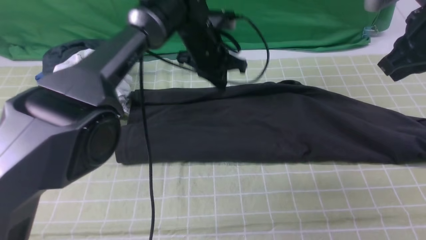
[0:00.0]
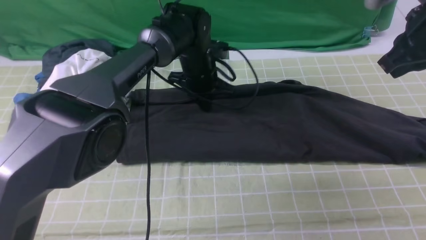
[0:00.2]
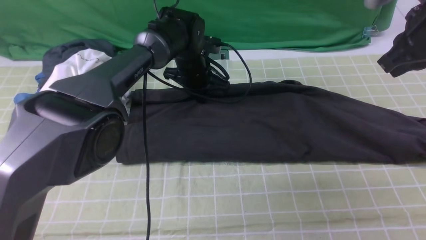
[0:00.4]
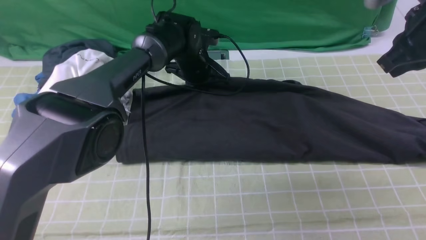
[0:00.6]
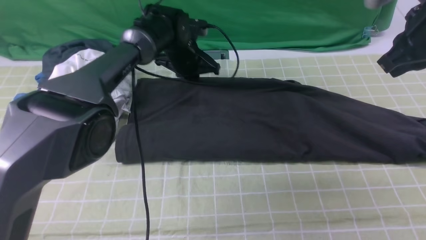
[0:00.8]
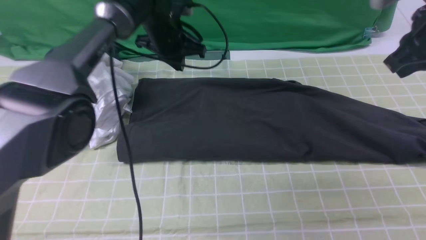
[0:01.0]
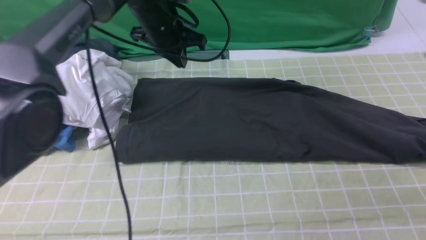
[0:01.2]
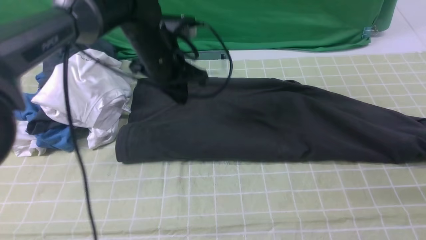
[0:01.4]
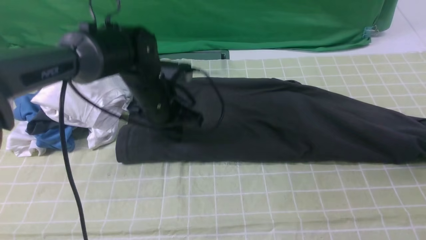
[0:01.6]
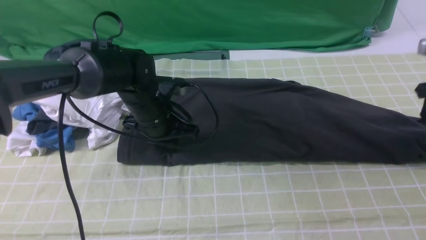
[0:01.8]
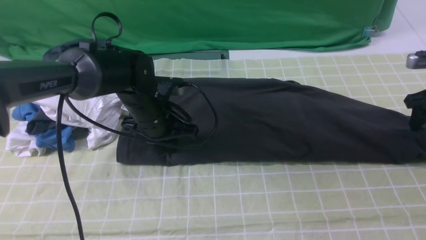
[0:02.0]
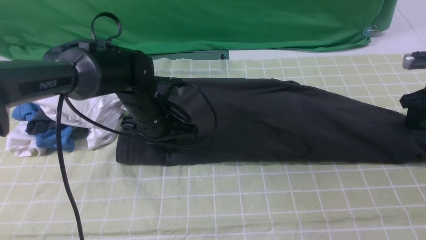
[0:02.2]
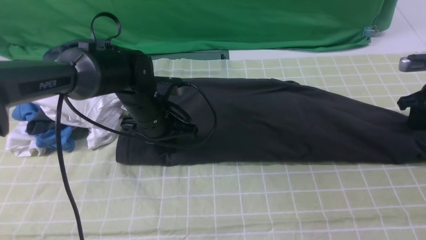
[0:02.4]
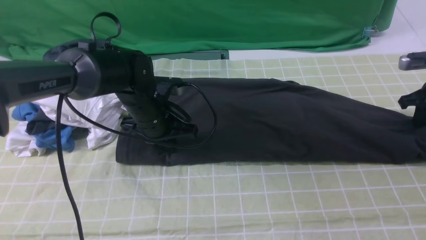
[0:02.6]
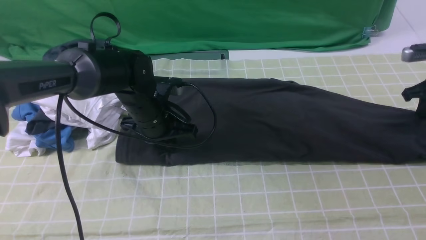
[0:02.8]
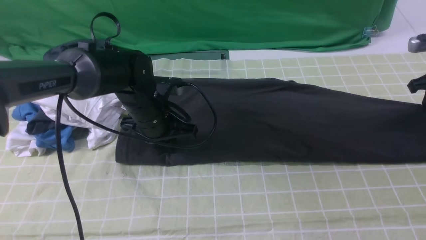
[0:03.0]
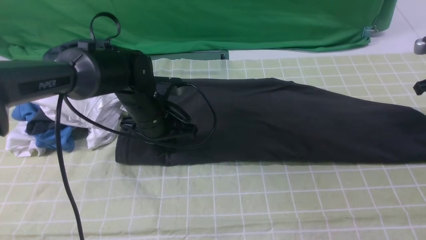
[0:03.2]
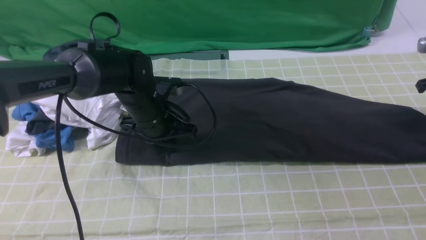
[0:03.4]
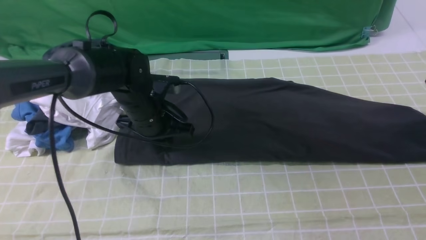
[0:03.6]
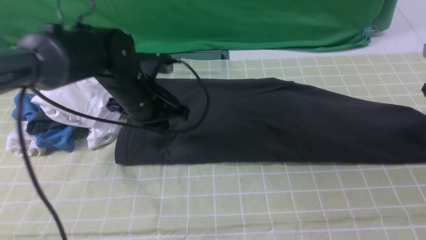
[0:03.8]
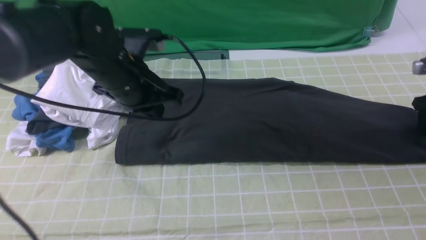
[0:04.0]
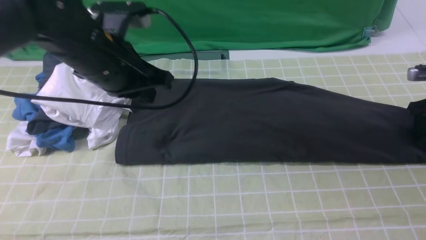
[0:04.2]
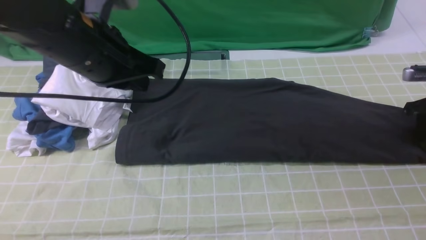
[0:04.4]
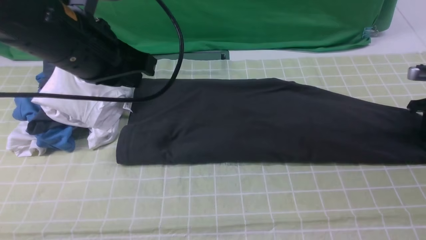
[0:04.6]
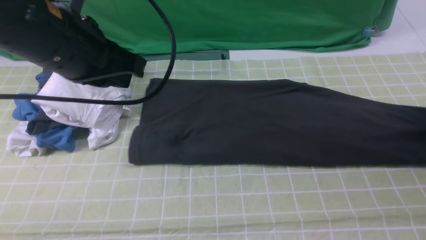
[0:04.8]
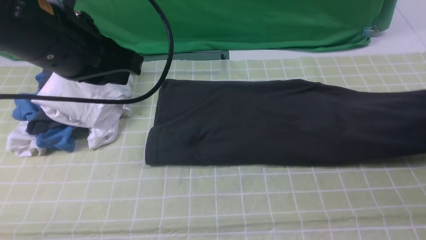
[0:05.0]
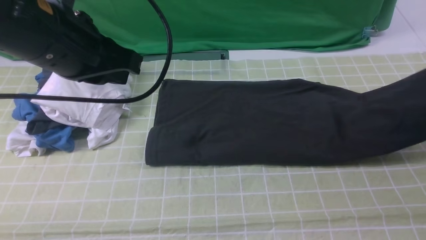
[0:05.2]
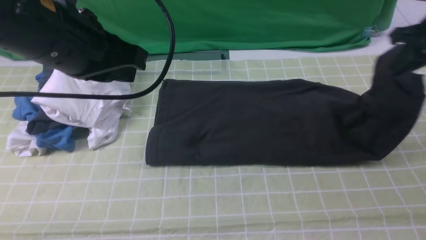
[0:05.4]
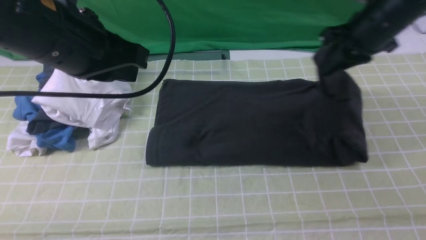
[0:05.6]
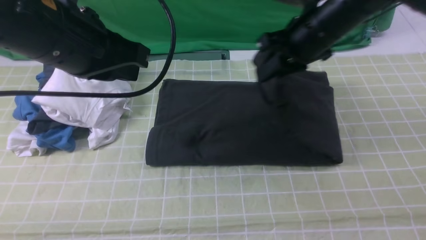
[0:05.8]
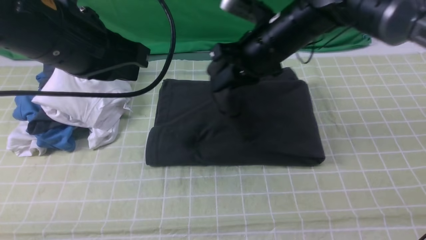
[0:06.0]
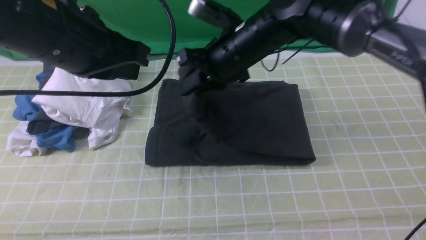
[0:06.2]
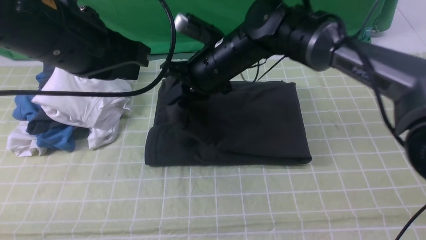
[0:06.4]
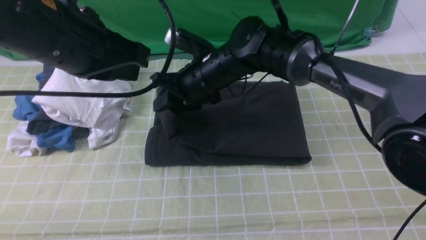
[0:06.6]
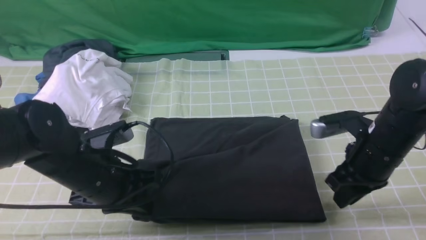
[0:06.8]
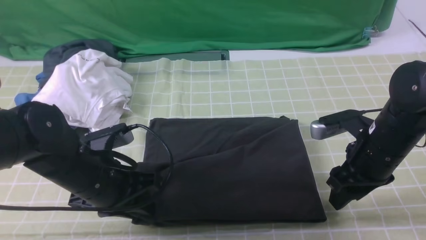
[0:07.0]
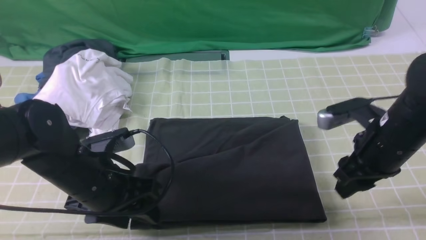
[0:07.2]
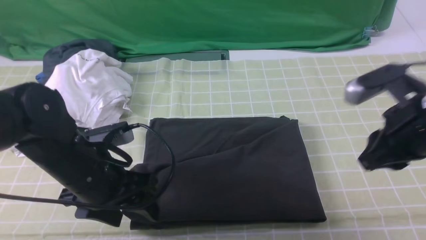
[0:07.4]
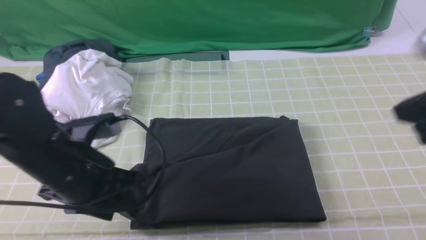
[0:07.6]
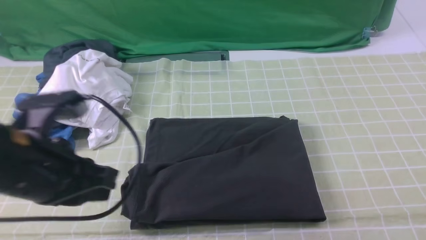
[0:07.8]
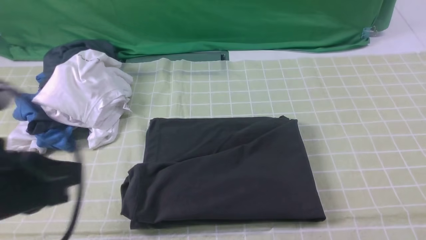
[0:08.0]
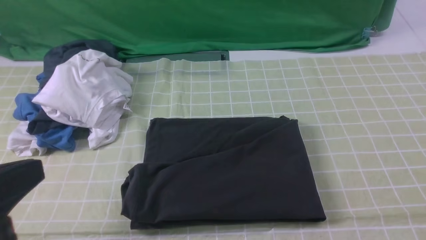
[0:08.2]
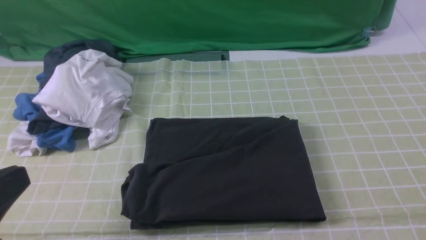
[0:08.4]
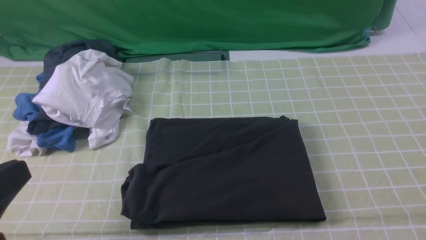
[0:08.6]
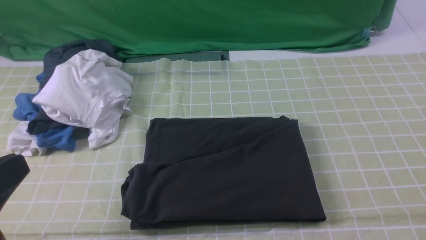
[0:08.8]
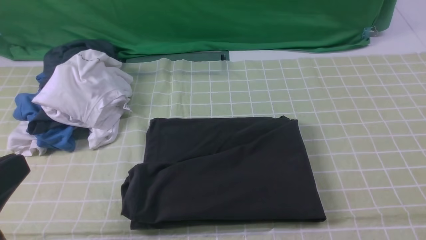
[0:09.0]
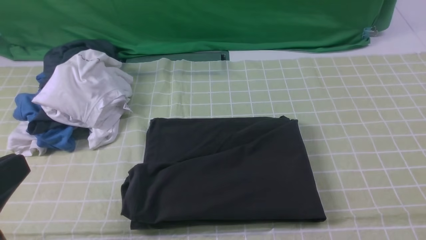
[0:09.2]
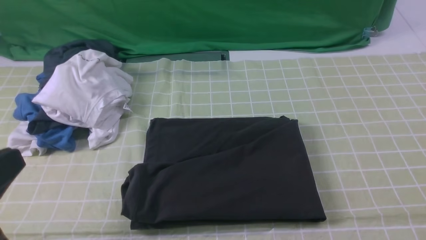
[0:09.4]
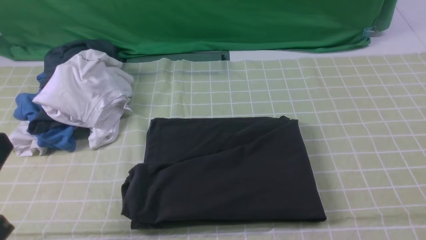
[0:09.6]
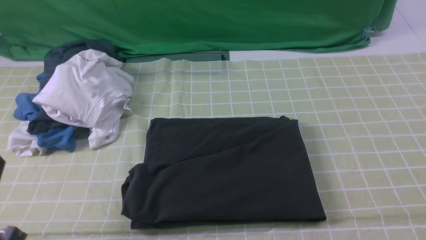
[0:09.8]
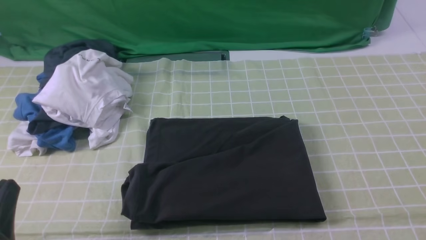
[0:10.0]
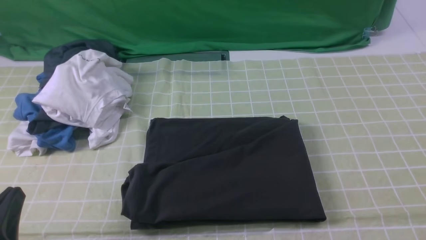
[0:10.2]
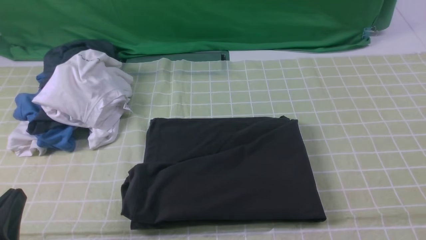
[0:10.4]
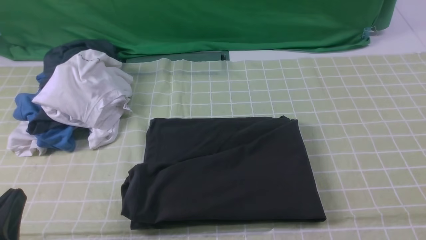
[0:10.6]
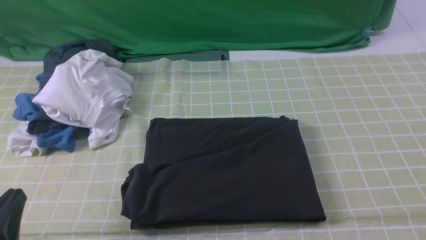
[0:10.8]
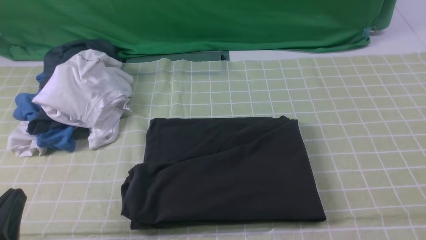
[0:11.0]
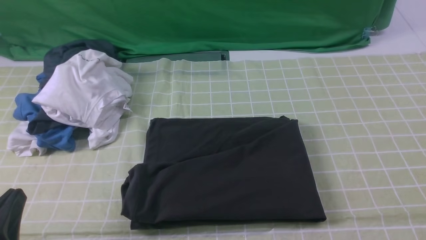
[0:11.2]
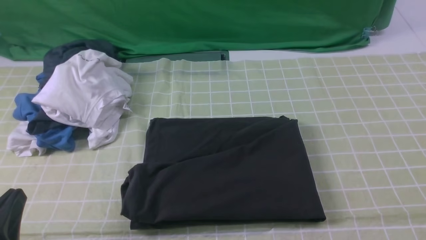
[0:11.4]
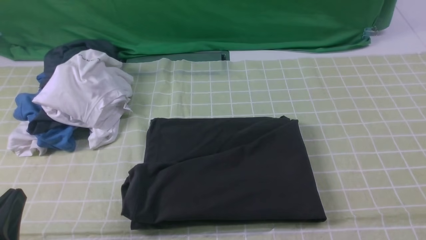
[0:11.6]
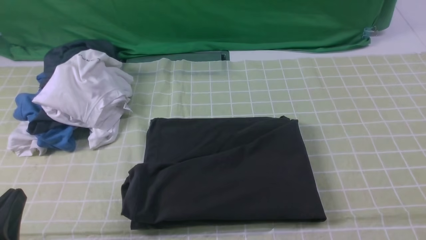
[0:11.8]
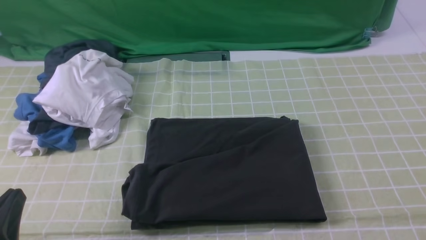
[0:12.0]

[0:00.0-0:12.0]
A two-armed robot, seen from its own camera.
Step, 1.0 to 4.4 s: use the right arm to clamp the right edge of the fabric.
Step, 4.8 to 7.6 s: use the right arm to drag the right edge of the fabric to the left and folds it over the left edge.
0.0 to 1.6 s: The left gripper shifts approximately 10 cm backward and to the left. Meanwhile the right gripper goes approximately 15 cm to the right and downward, and opens.
1.6 to 3.0 s: The right gripper moves downward and forward, roughly 10 cm, and closes its fingers.
3.0 to 4.4 s: The left gripper heads upward and backward, covering about 20 cm, while the right gripper opens its fingers.
4.4 to 6.0 s: The right gripper heads to the left, covering some 35 cm.
6.0 to 7.6 s: The right gripper is displaced backward, to the right and upward by about 30 cm, and opens, then closes again. Meanwhile the left gripper heads downward and backward, covering approximately 15 cm, and opens up.
7.6 to 9.0 s: The right gripper travels backward and to the right by some 15 cm, while the left gripper is displaced backward and upward by approximately 15 cm, and closes.
9.0 to 10.4 s: The left gripper shifts roughly 10 cm downward.

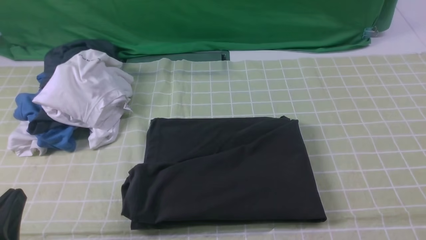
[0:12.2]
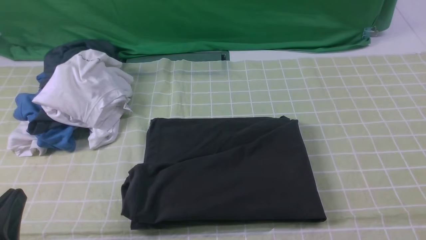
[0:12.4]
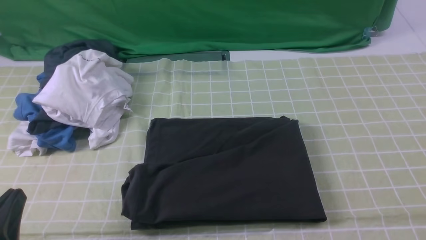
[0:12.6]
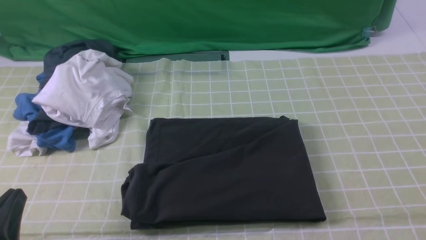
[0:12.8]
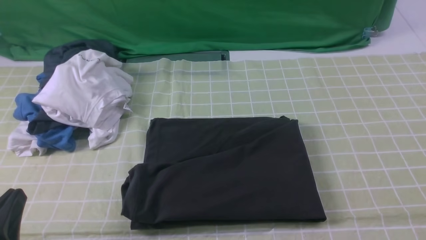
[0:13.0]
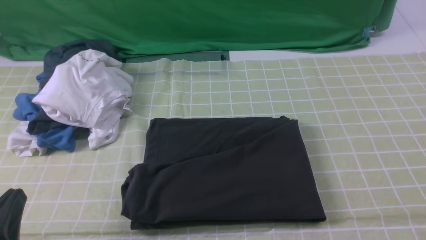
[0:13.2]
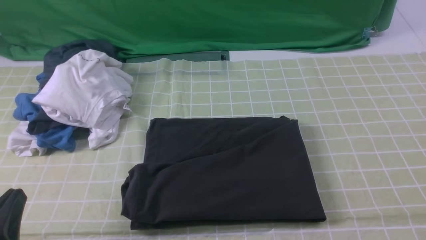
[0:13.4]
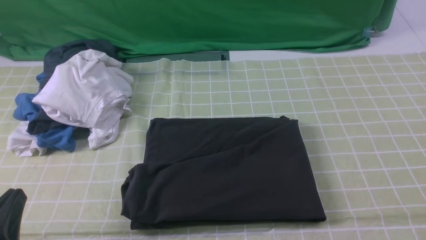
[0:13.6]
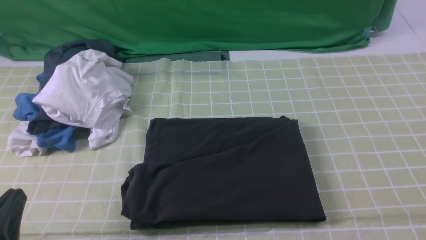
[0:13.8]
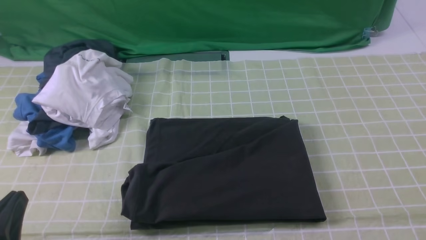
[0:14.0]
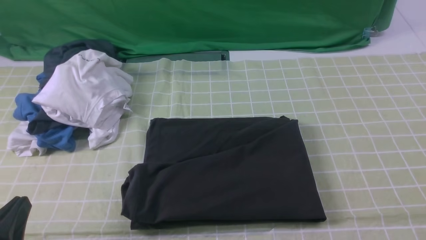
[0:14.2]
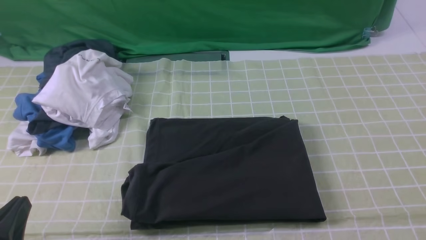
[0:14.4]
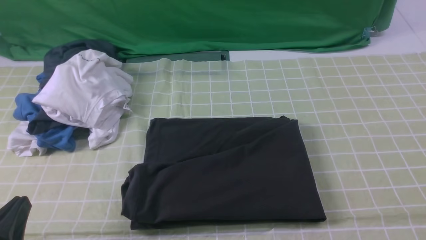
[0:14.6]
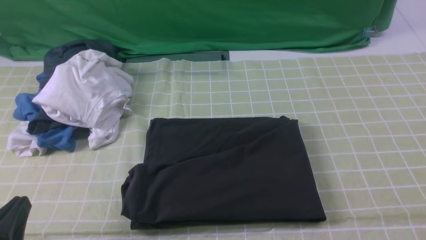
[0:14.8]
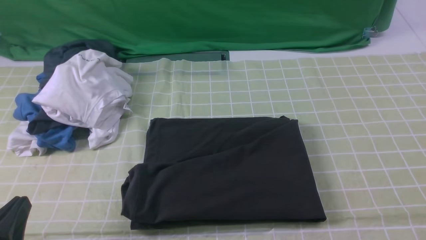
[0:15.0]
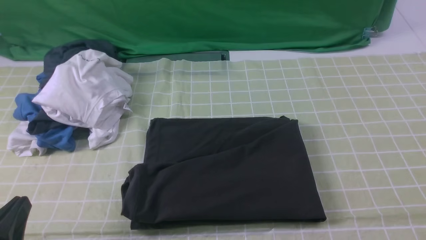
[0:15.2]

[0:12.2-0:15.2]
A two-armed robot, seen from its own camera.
12.2 to 15.2 s: The two grippers keep their place.

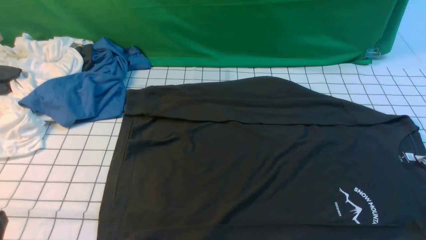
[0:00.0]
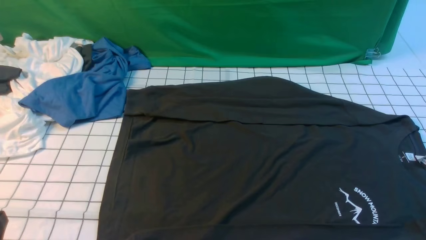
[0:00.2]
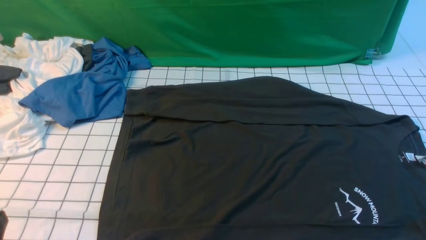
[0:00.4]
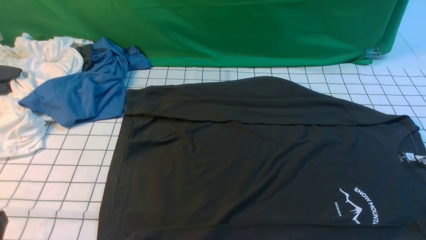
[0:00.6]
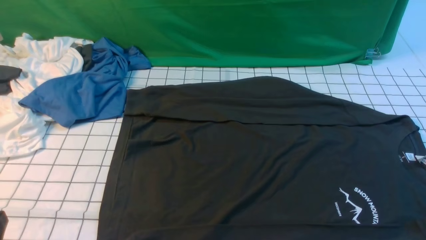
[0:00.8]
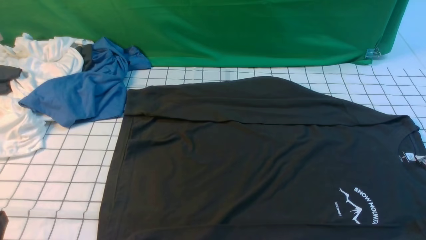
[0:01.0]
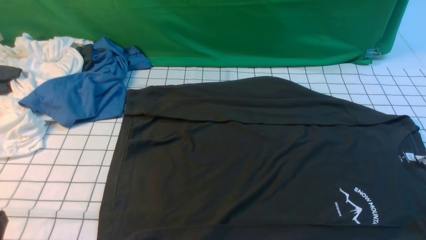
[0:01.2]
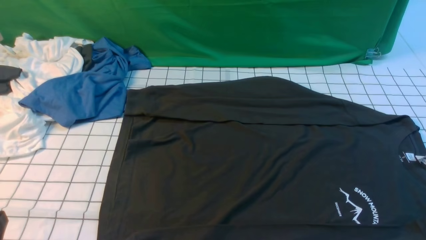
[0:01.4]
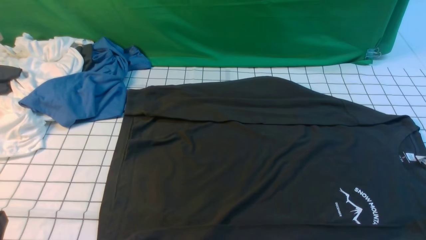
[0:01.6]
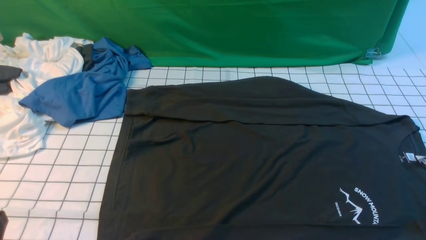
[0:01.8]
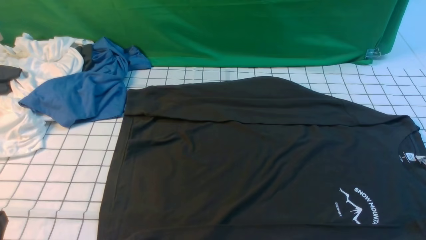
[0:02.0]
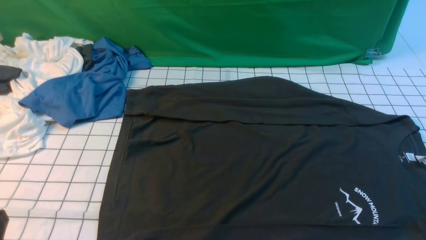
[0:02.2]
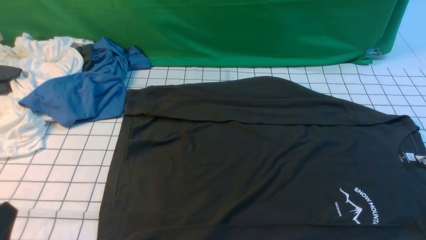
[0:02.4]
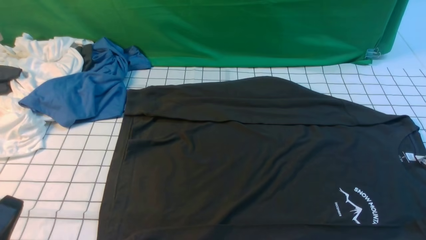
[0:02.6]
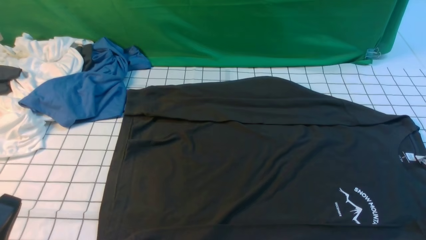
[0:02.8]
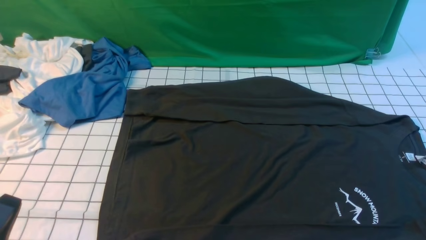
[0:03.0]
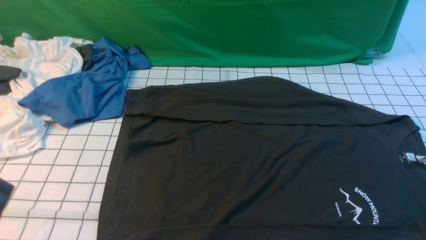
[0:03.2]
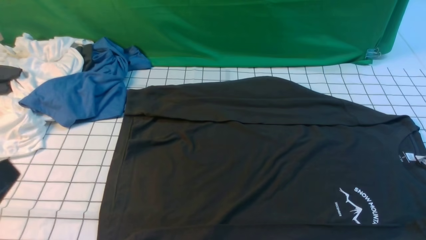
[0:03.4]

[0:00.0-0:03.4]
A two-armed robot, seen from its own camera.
0.0 to 1.6 s: Both grippers stay about where they are.
1.6 to 3.4 s: The left gripper is displaced upward by approximately 10 cm.
